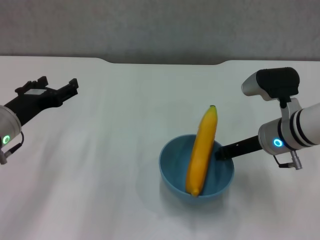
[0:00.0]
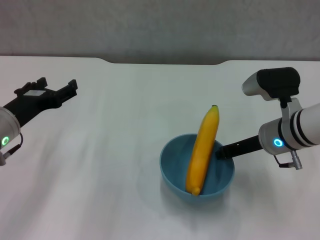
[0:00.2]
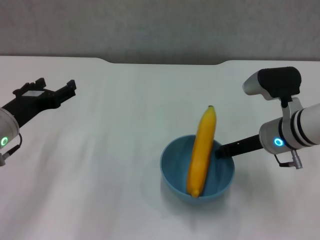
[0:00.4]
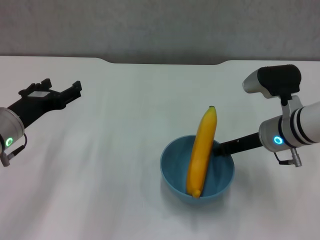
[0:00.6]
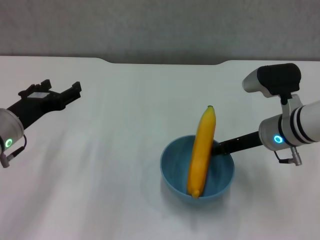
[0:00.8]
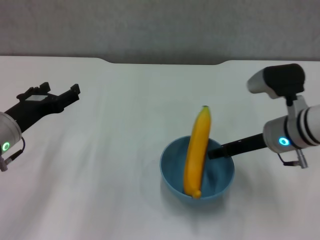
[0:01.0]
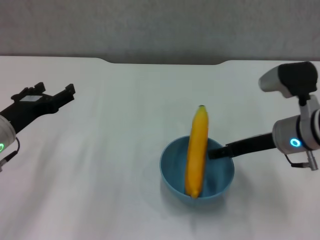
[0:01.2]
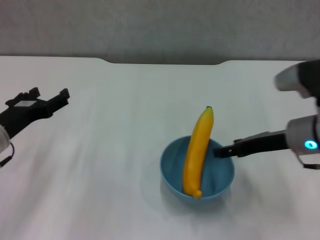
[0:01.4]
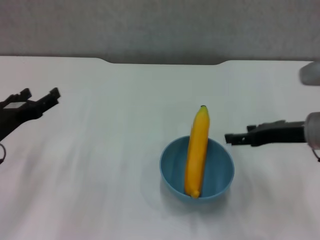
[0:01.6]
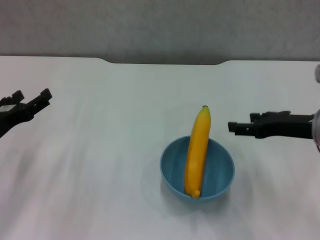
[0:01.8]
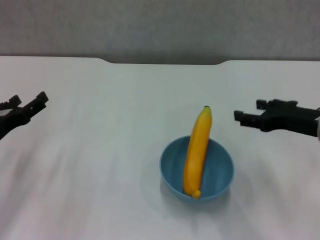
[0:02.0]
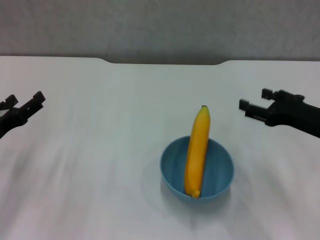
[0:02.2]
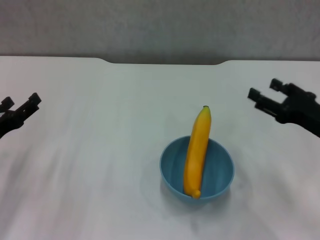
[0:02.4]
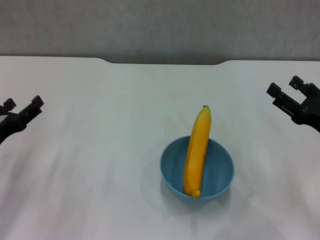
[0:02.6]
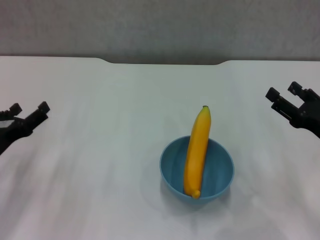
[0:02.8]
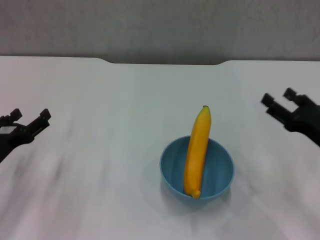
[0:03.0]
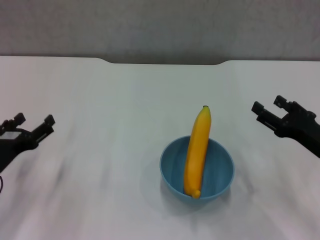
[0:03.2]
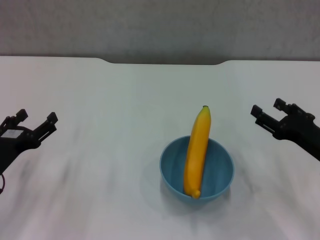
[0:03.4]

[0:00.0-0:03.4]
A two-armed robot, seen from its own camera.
0:00.0 to 0:01.6: The right gripper changes place by about 10 cm, and opens.
0:01.6 to 0:03.4: The left gripper changes place by approximately 5 cm. The right gripper travels downward by roughly 10 cm.
